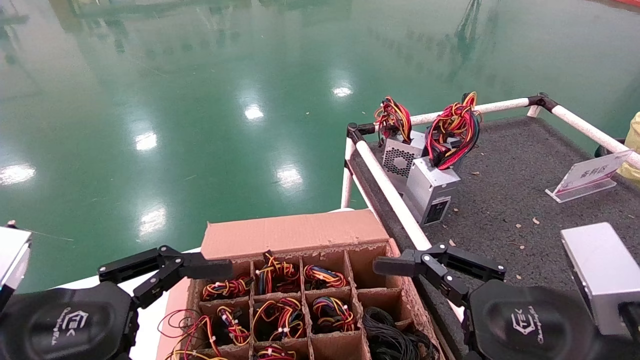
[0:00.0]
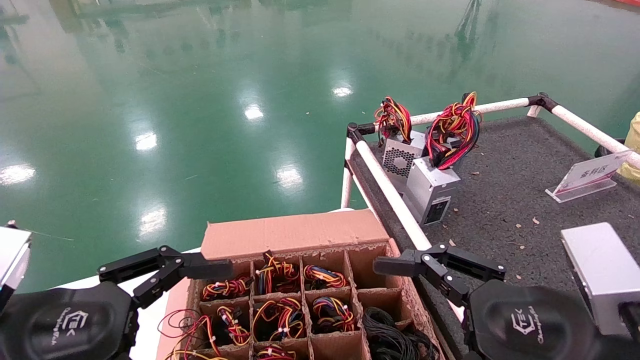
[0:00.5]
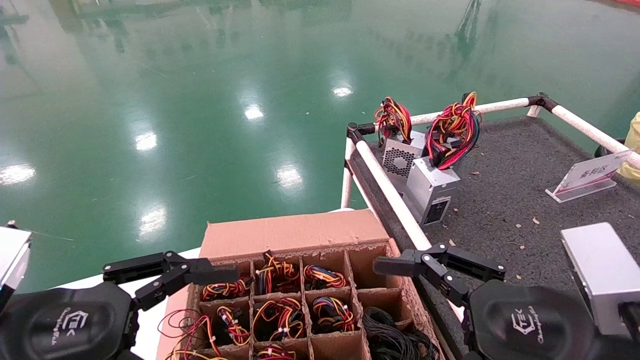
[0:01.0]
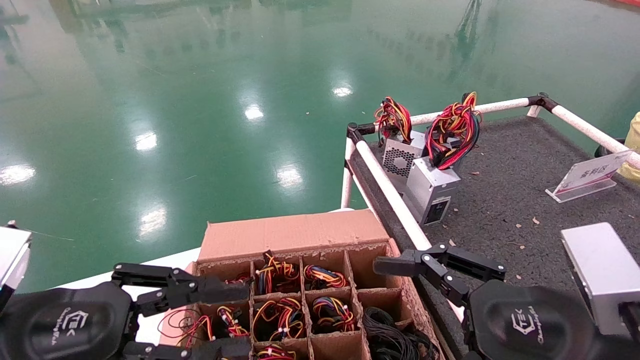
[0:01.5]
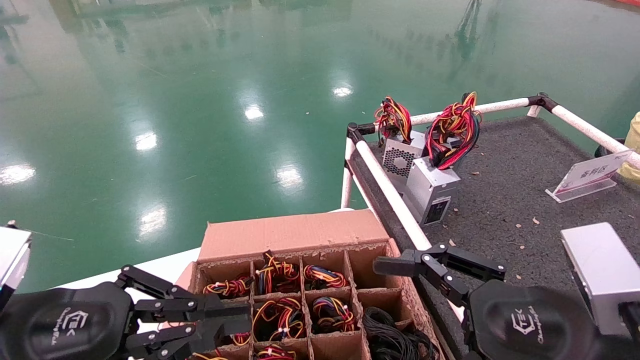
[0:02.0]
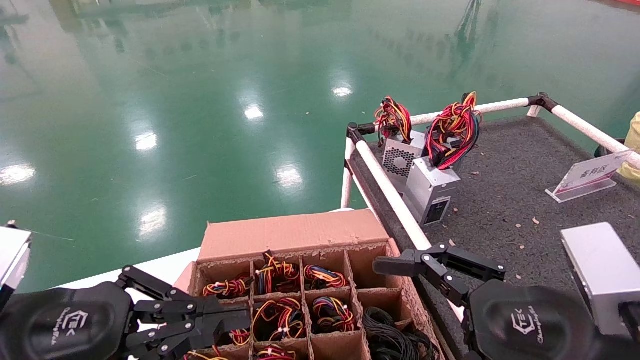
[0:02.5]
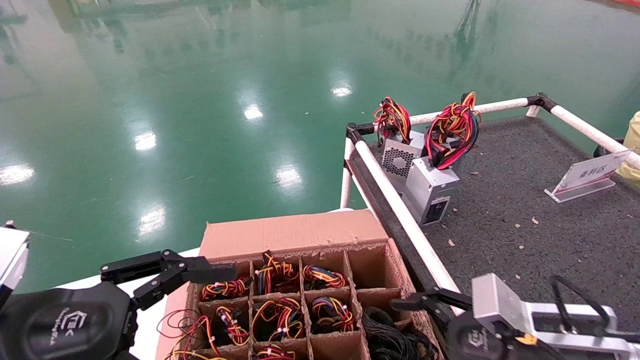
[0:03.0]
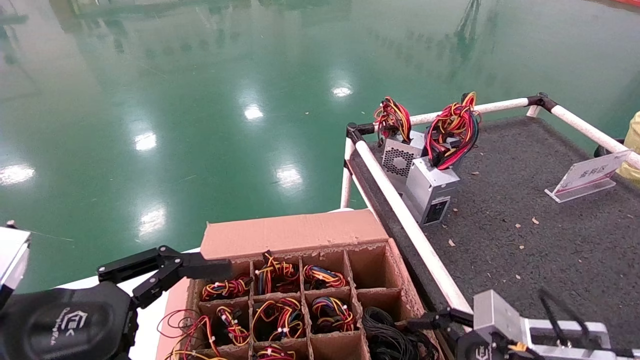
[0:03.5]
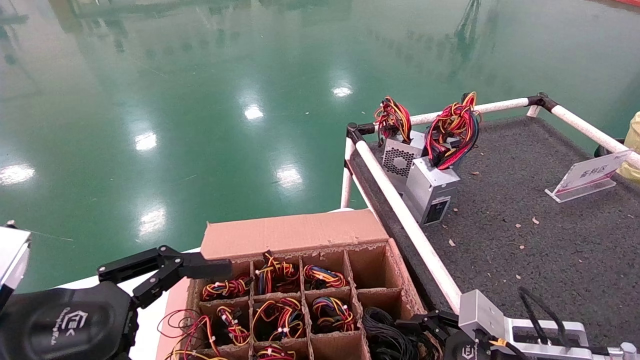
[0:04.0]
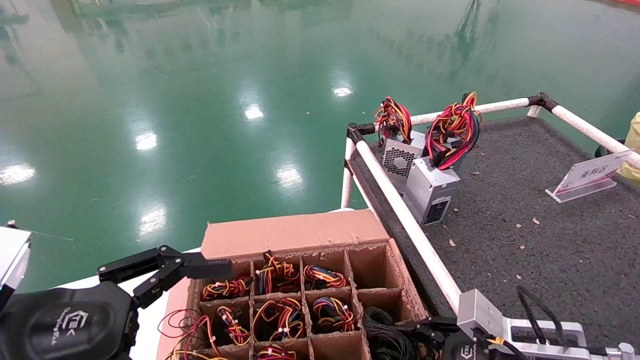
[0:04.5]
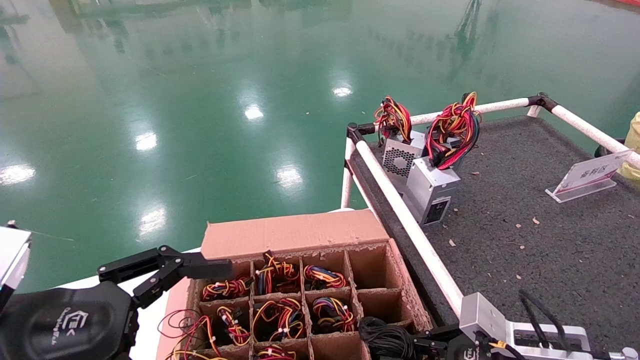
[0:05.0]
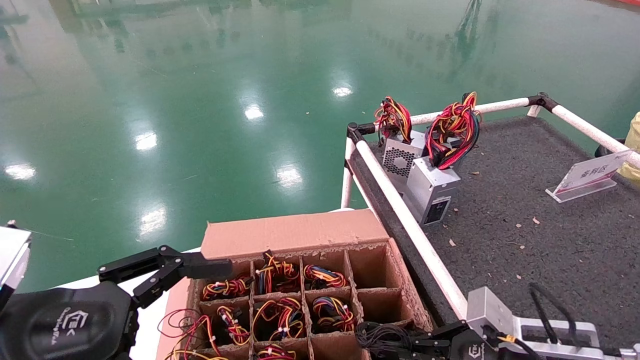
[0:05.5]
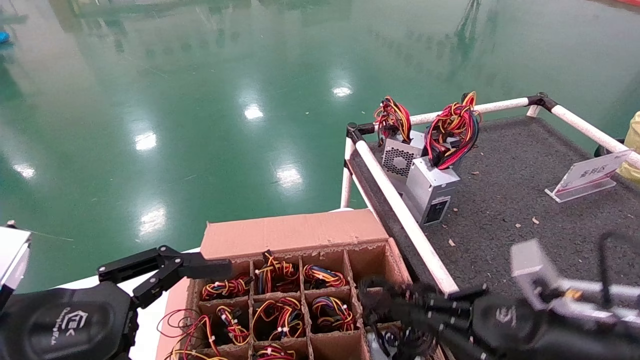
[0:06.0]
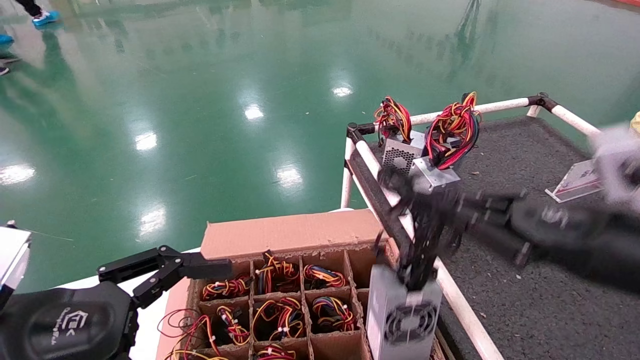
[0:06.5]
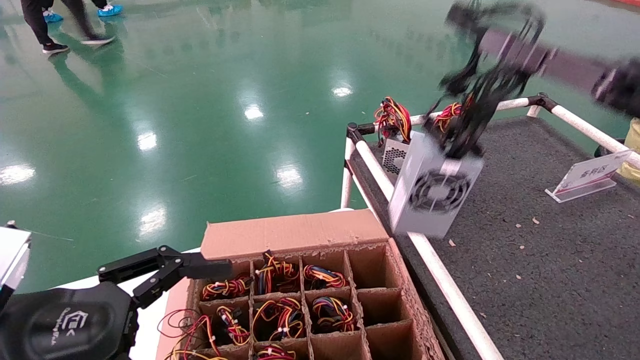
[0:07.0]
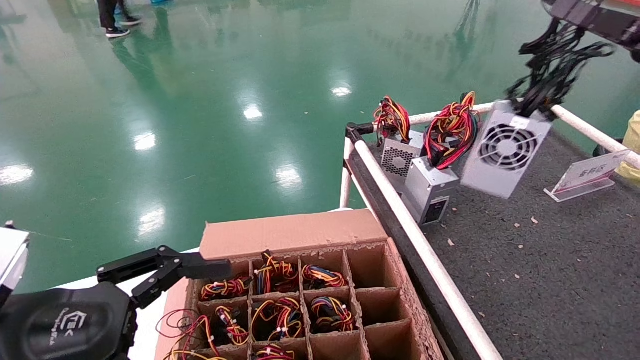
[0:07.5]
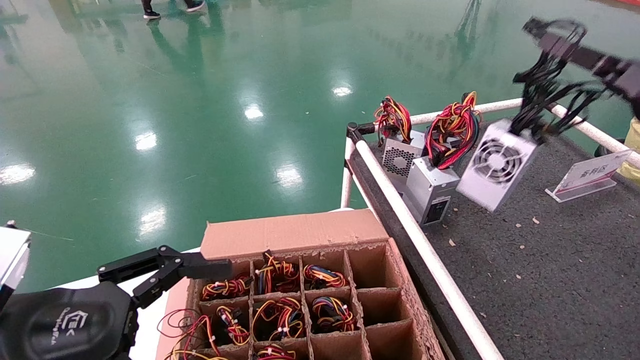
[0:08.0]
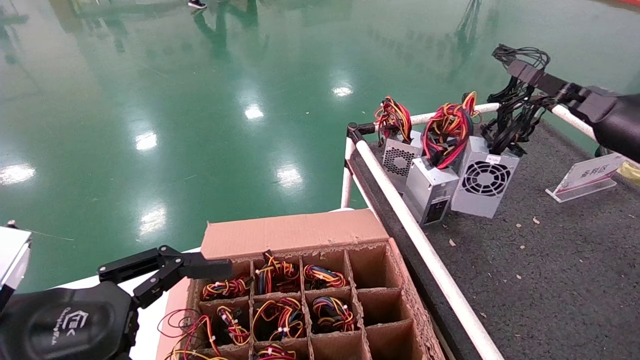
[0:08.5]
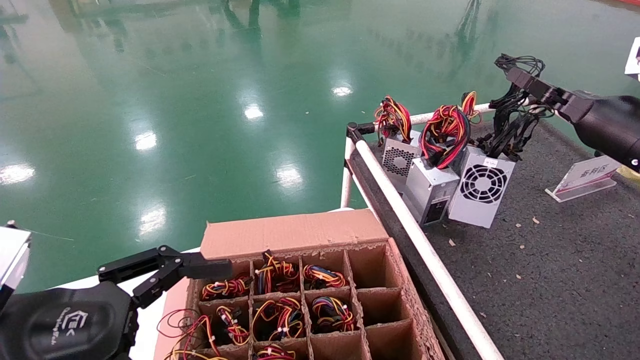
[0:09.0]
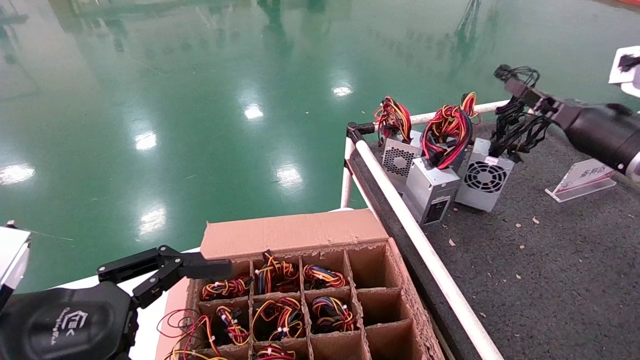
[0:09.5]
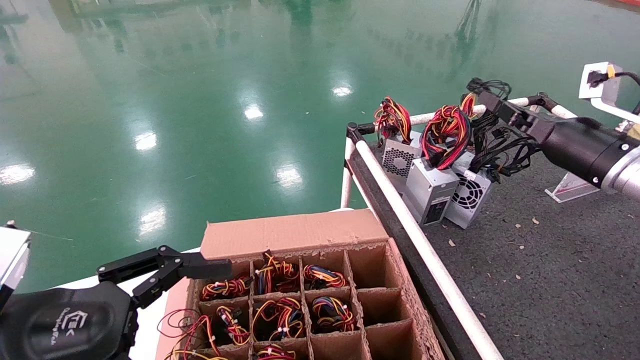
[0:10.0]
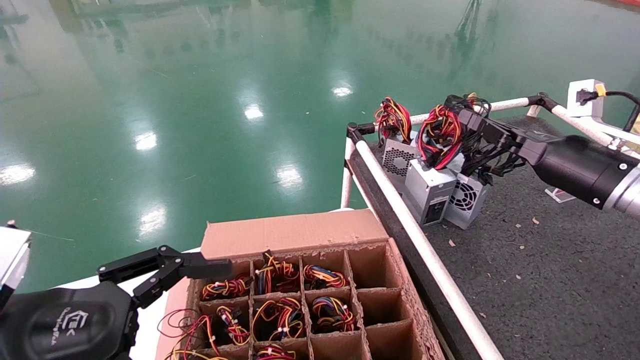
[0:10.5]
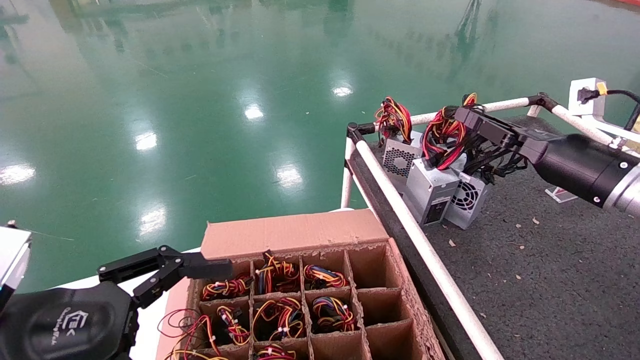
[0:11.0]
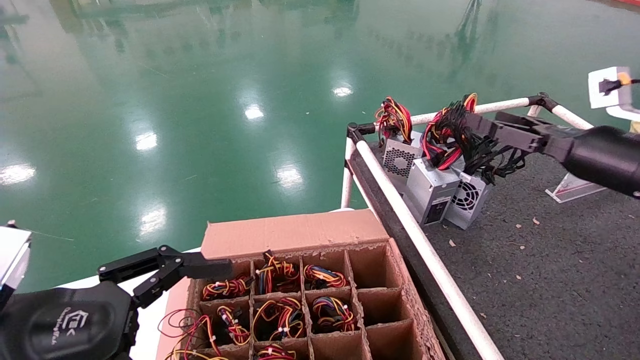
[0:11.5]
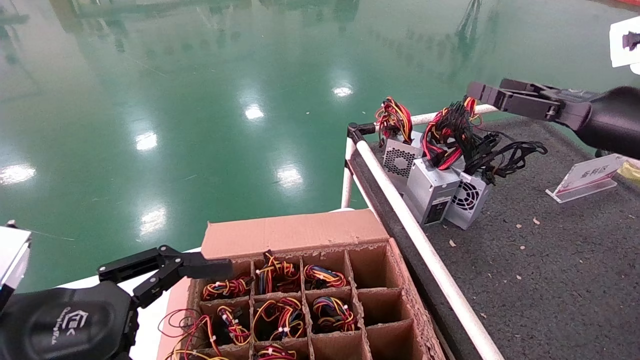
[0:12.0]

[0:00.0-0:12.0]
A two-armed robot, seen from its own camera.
Step, 0:01.5 to 0:06.0: Grab and lift the power supply from the large box.
Step, 0:06.5 to 0:11.5: Place the power supply on the operating table.
0:00.0 to 0:02.0: The left gripper closes up.
0:02.0 to 0:04.0: The right gripper is displaced downward and forward by some 10 cm. The left gripper opens its fingers.
0:04.0 to 0:06.0: The right gripper closes.
0:06.0 to 0:08.0: The right gripper goes roughly 30 cm upward.
0:08.0 to 0:10.0: The right gripper goes roughly 15 cm forward.

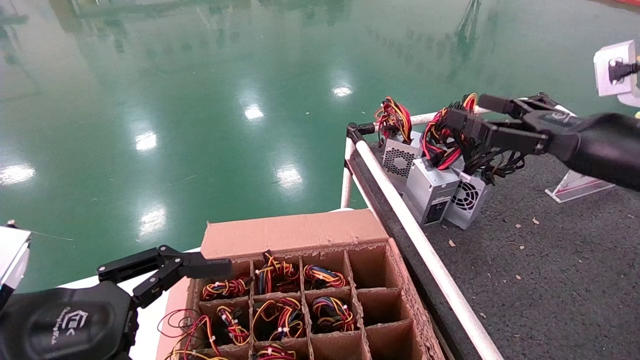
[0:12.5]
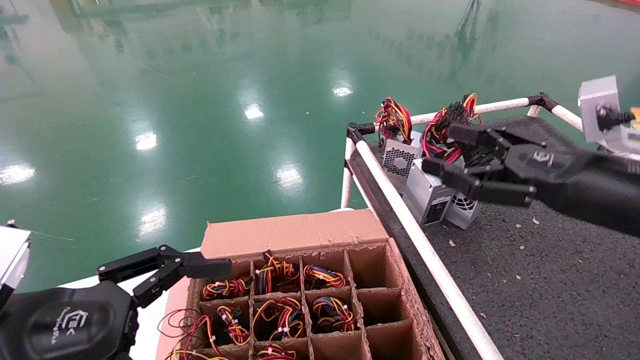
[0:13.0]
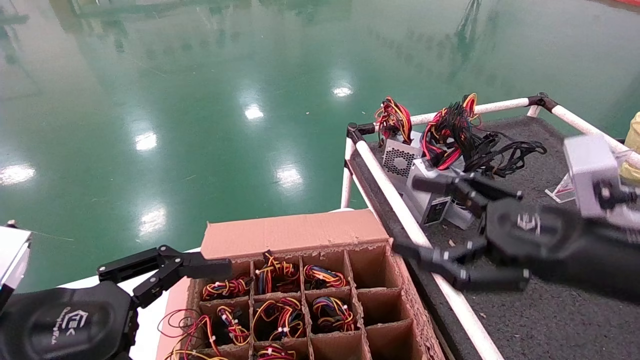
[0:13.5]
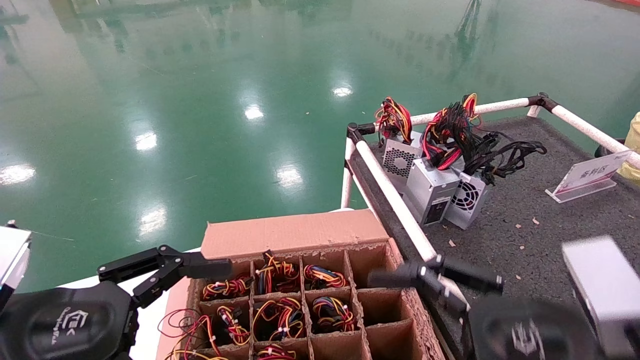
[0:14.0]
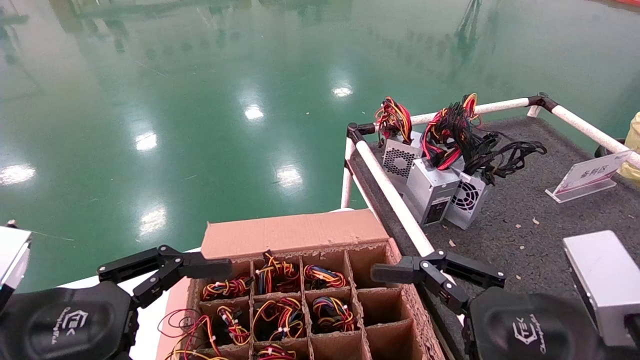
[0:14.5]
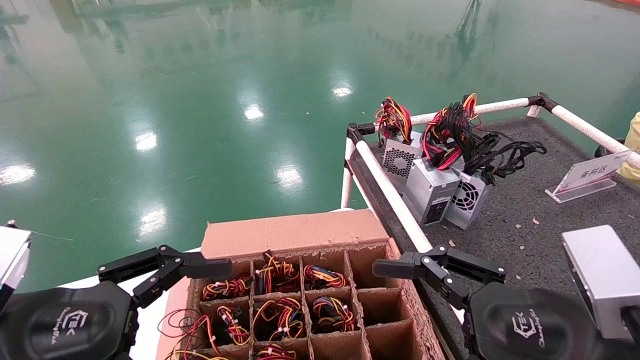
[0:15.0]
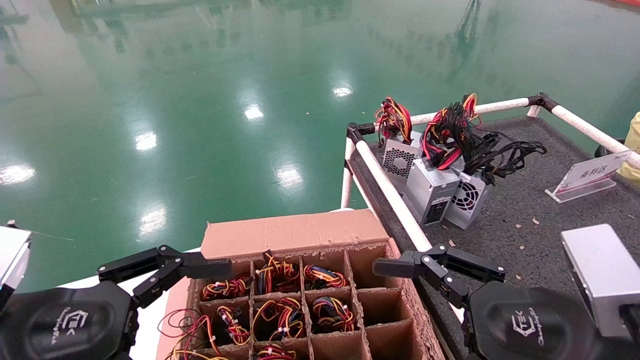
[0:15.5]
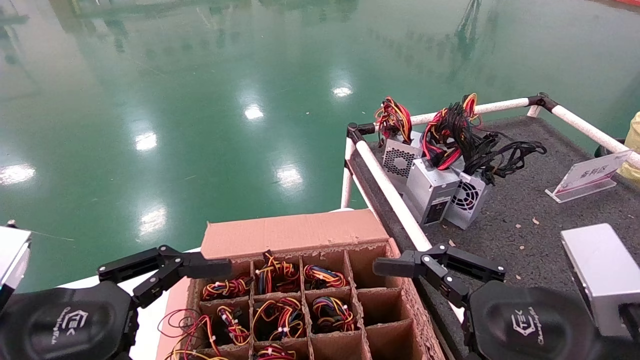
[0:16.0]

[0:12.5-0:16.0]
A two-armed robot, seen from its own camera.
0:12.5 to 0:14.5: The right gripper moves backward, to the left and downward, approximately 20 cm.
0:14.5 to 0:16.0: The grippers move only a little.

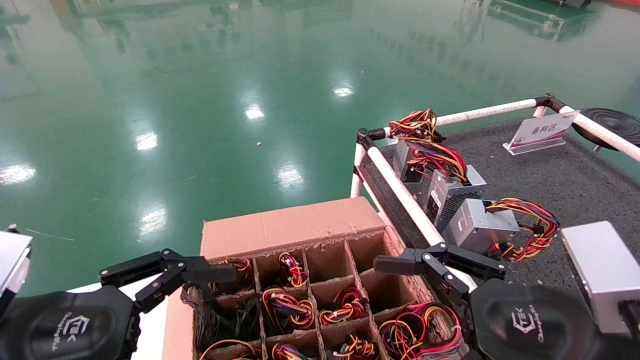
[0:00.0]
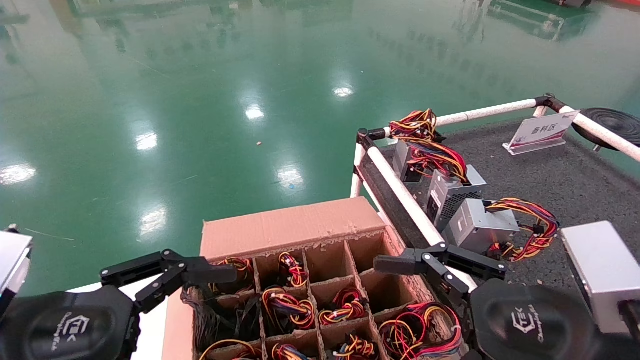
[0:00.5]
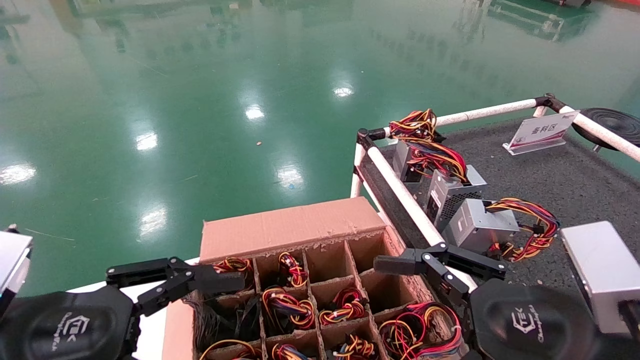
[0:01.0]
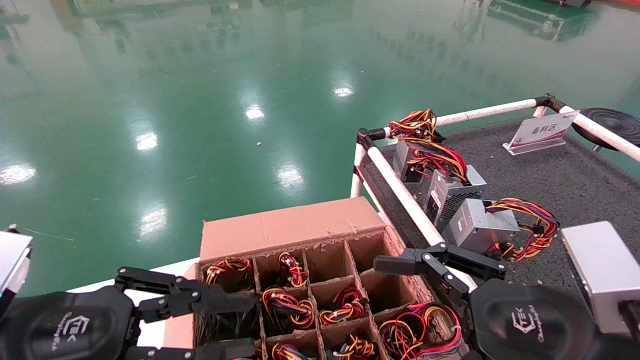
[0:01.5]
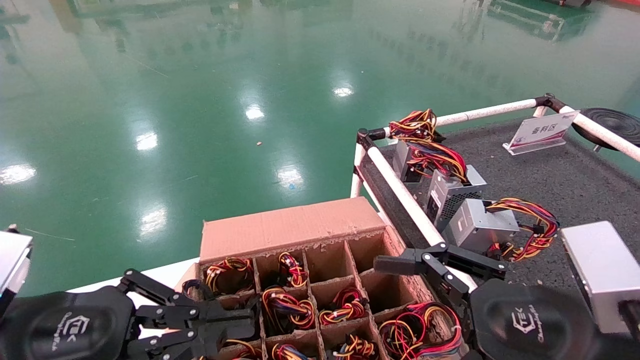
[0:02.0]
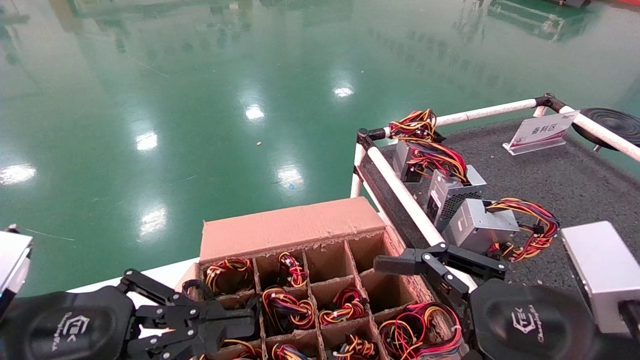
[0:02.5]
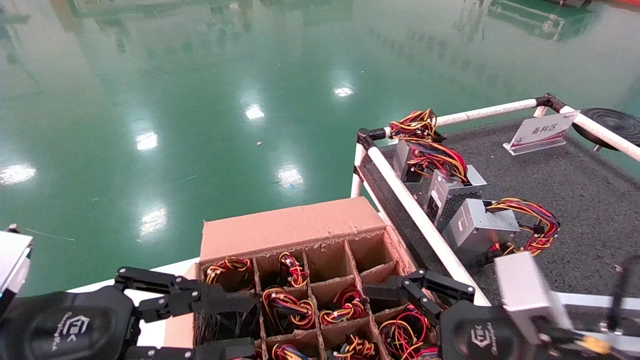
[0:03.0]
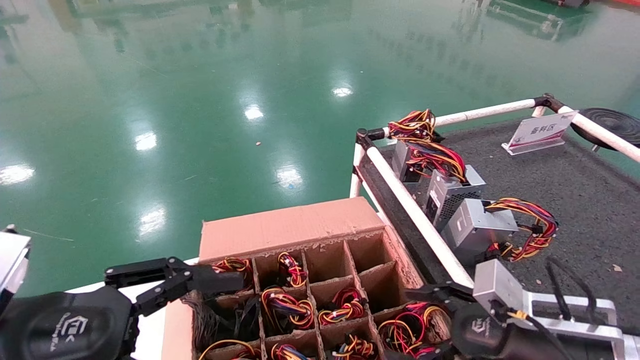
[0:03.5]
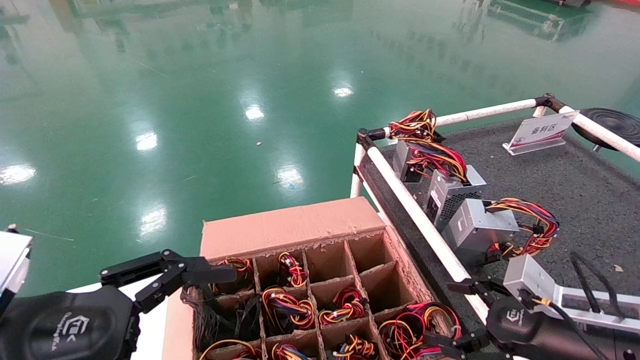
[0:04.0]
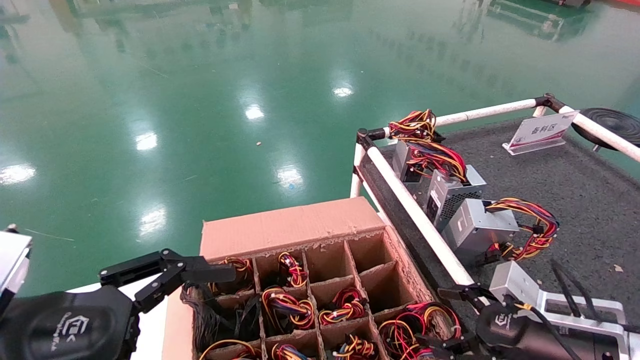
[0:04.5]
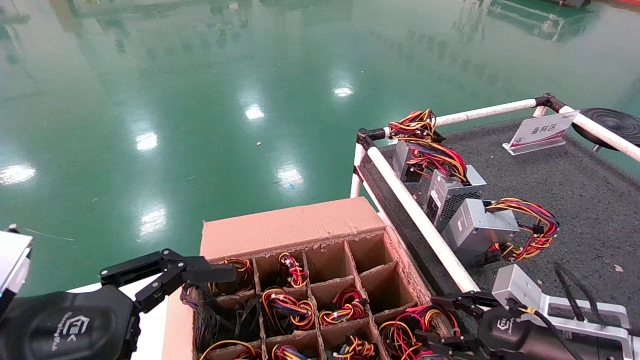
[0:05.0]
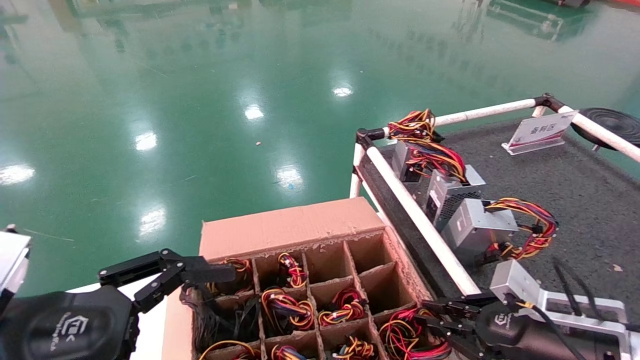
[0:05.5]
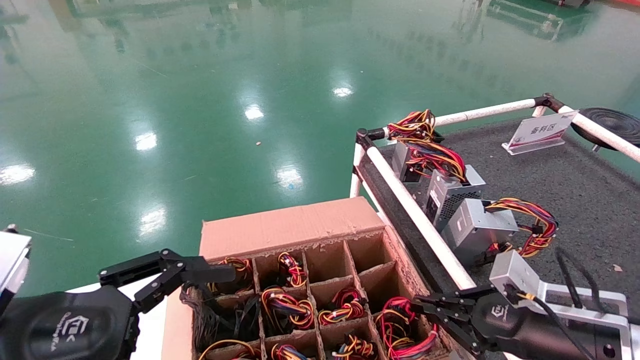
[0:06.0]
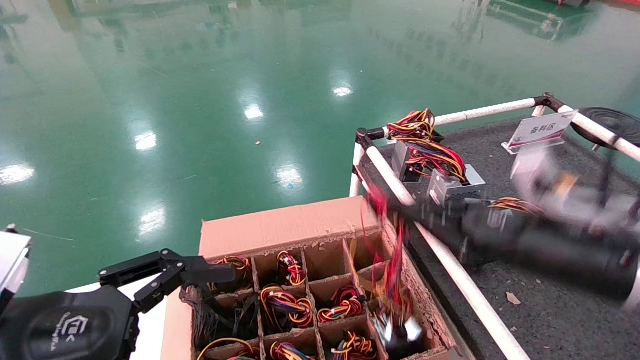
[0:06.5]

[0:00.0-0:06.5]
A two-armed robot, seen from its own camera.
Step, 0:03.5 to 0:05.5: Grab and lift the power supply from the large box.
0:00.0 to 0:02.0: The left gripper closes.
0:02.0 to 0:04.5: The right gripper goes approximately 15 cm forward, downward and to the right. The left gripper opens.
0:04.5 to 0:06.5: The right gripper shifts about 15 cm upward, and closes its fingers.
